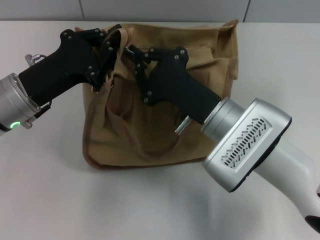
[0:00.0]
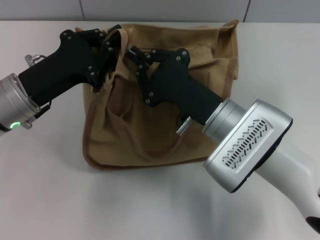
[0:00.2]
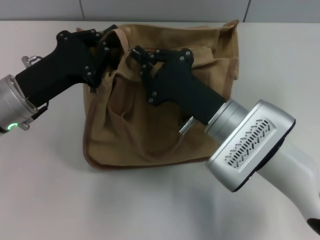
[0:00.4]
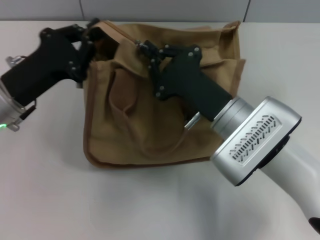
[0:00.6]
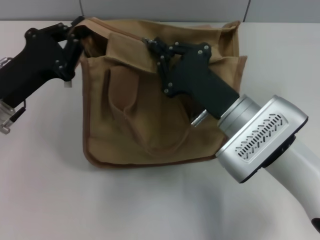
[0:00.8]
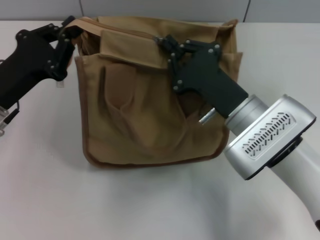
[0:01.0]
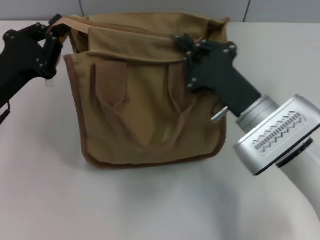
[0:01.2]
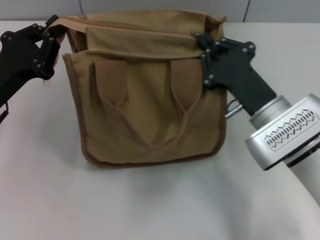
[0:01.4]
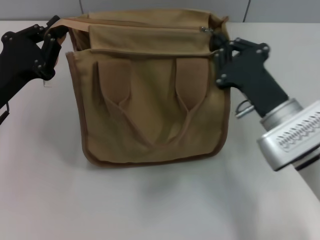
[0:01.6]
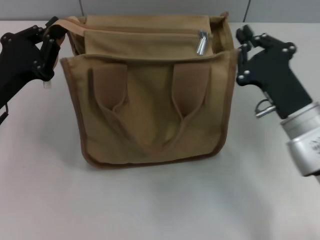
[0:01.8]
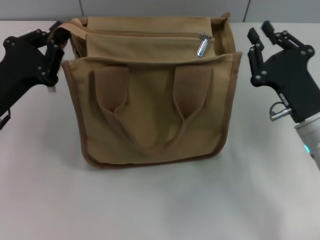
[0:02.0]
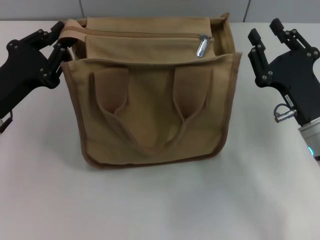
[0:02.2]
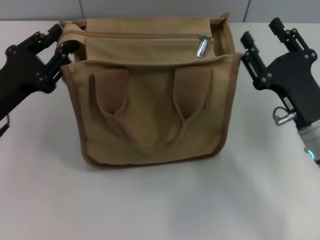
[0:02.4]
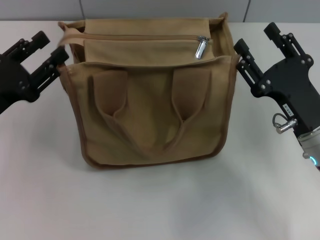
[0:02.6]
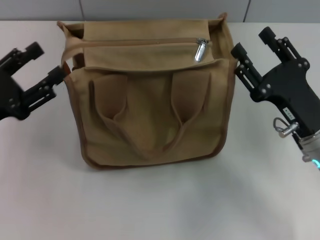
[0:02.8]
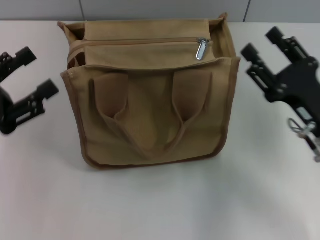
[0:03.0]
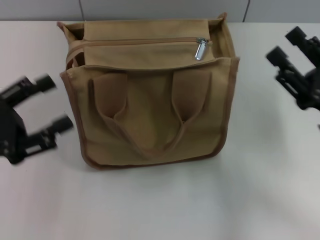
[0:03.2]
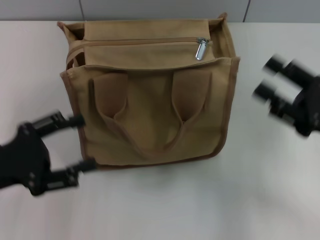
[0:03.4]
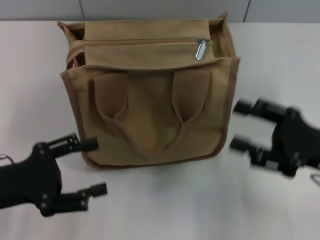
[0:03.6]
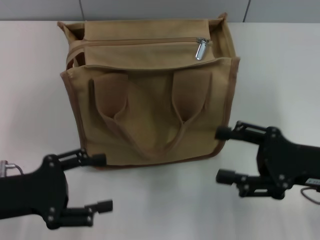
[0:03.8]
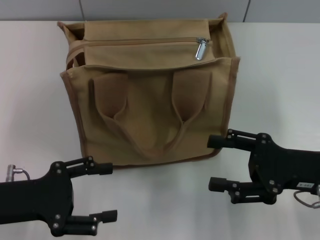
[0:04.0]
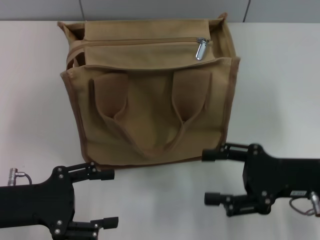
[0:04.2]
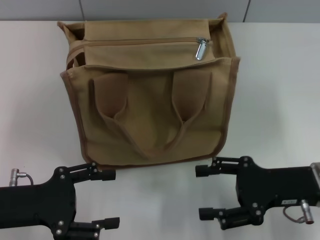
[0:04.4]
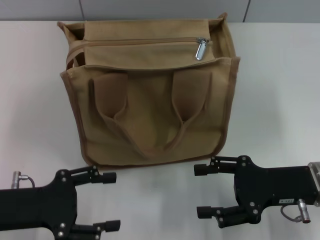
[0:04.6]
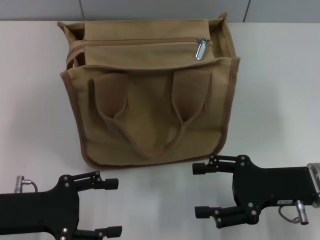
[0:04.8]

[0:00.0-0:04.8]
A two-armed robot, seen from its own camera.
Step, 0:01.8 to 0:02.8: Grab the zipper with your left hand.
0:00.0 to 0:01.6: The right gripper is displaced to the right by some 10 cm. The left gripper moves some 5 cm.
0:01.6 to 0:03.2: The left gripper moves backward, roughly 5 cm, and opens. The right gripper heads to the right, covering about 10 cm, and opens up.
0:03.2 to 0:04.8: The left gripper shifts by approximately 5 cm.
